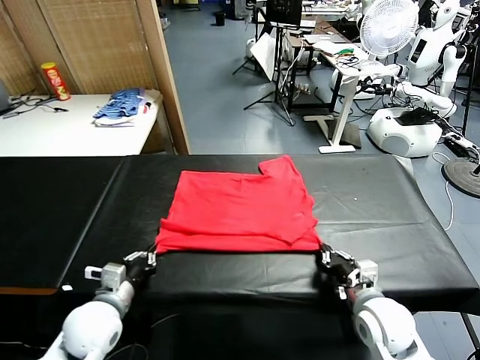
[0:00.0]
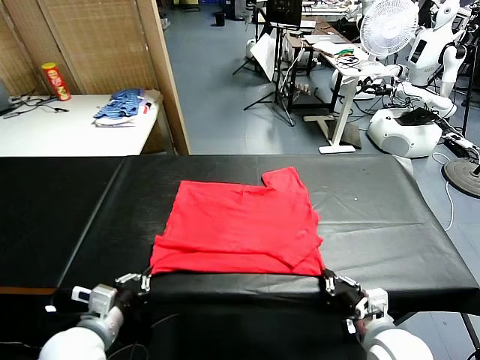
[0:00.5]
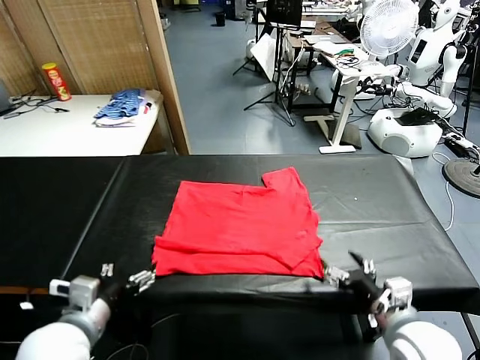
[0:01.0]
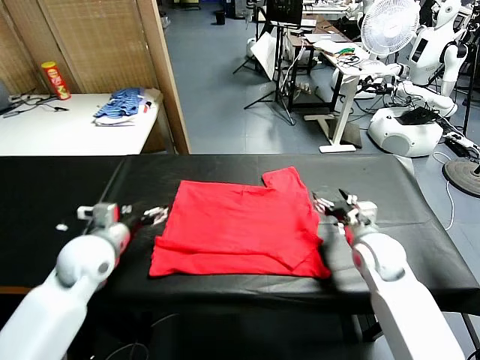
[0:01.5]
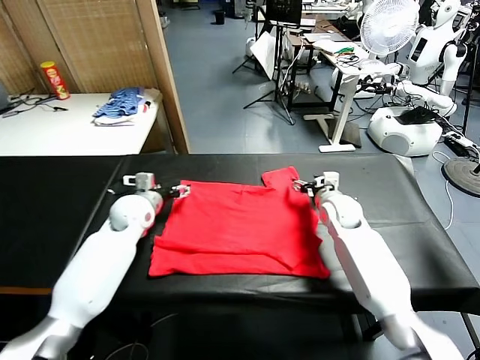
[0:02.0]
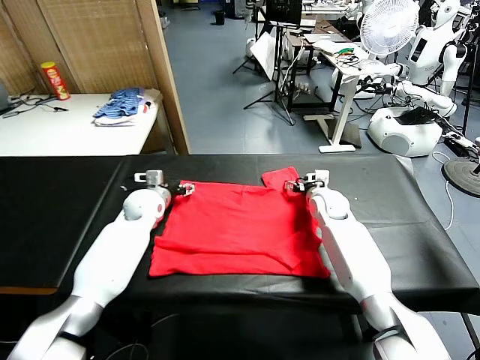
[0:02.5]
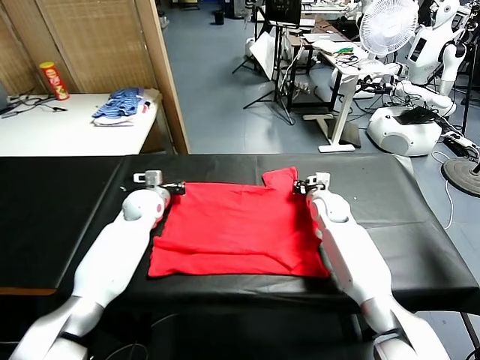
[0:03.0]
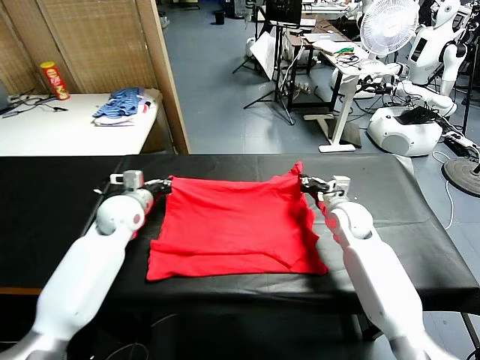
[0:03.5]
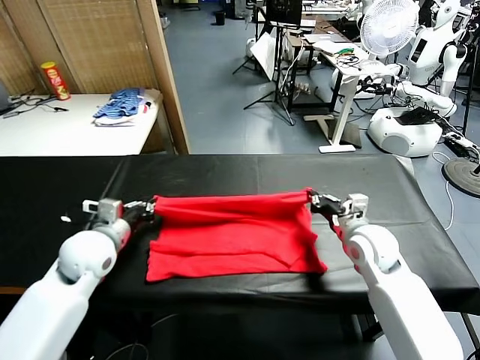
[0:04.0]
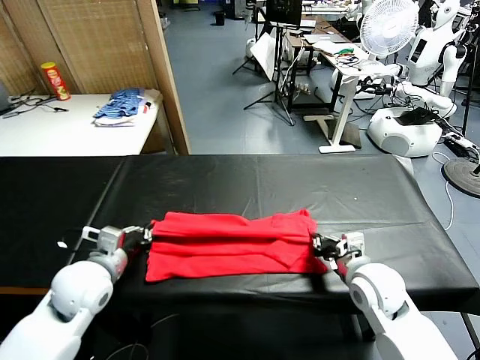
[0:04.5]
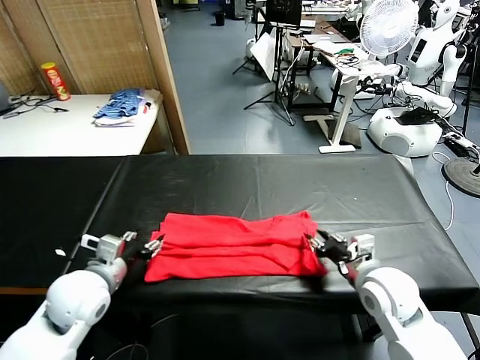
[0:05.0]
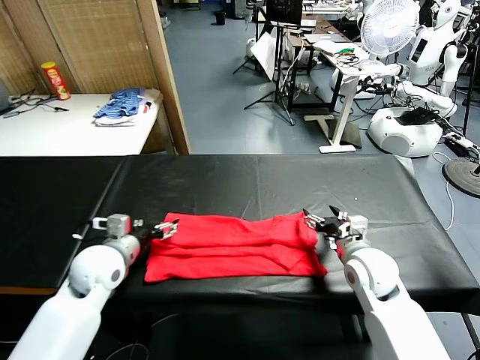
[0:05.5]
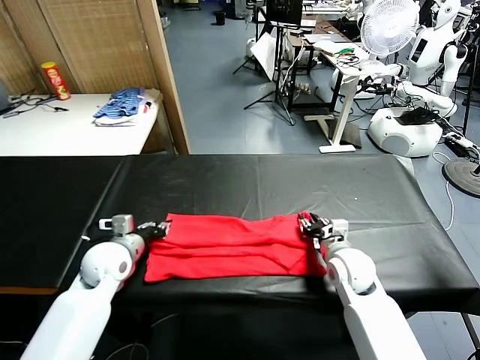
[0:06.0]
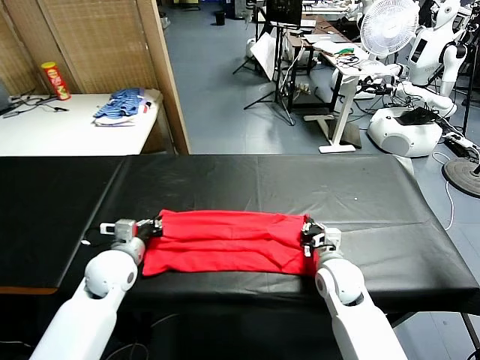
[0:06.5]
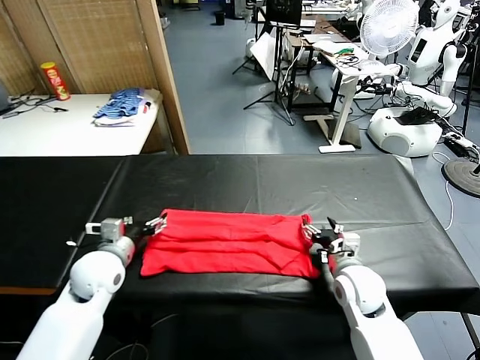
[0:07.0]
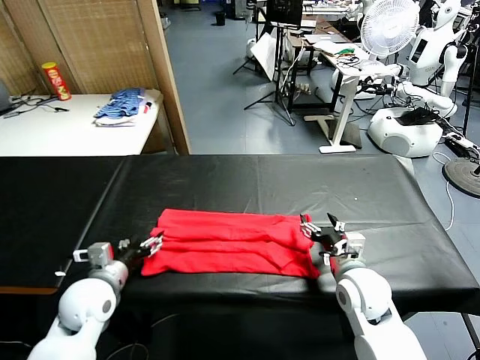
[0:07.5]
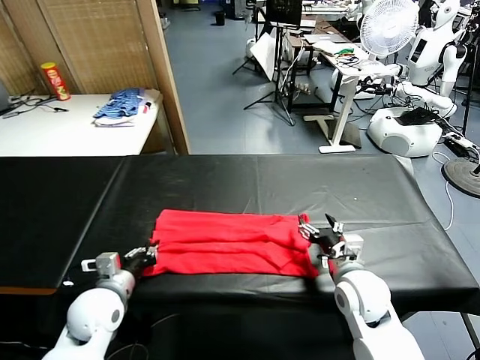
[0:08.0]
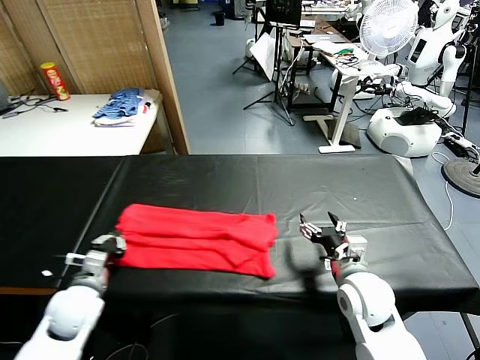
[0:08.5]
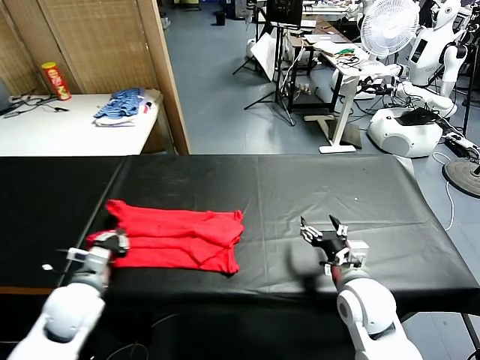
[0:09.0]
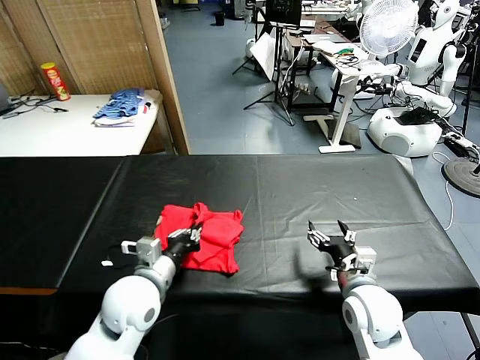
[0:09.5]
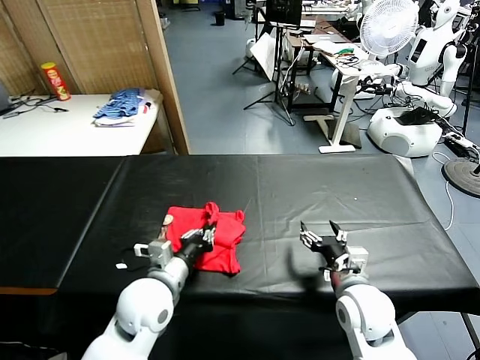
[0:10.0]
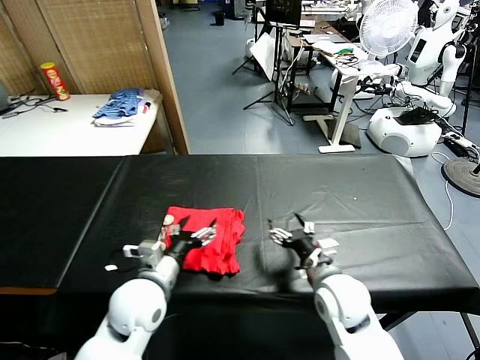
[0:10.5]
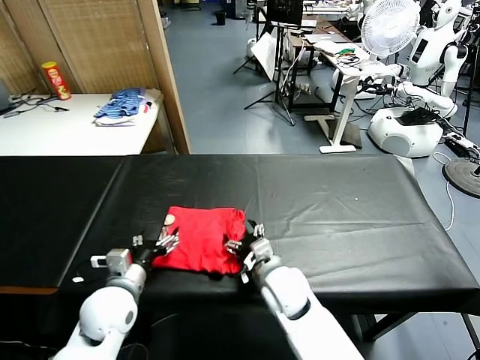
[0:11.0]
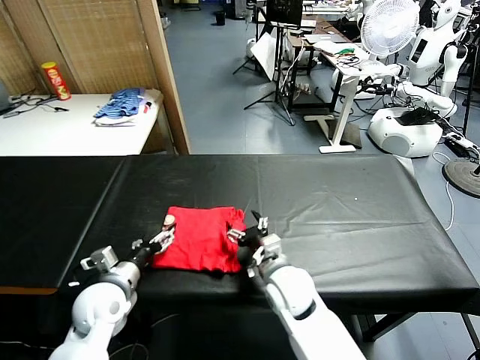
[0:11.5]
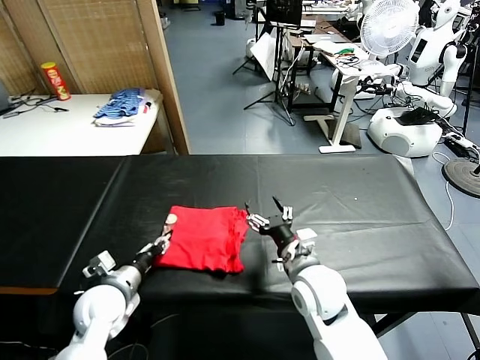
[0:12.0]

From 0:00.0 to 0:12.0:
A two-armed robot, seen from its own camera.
Task of the whole recording: fold and organize the clothes.
Step, from 0:01.0 to 0:03.0: use both grippers simultaneously to clamp the upper edge of the clothing fabric.
Step, from 0:03.5 to 0:05.0: use both grippers to drag the upper edge of the fabric backward and fold it over the lower edge.
Step, from 0:05.5 to 0:08.0: use the left gripper to clamp the left edge of the fabric.
Step, from 0:08.5 to 0:10.0: use the left gripper to drag the left edge of the fabric to the left and folds it over the right edge.
From 0:00.0 to 0:02.0: Both grippers move forward, roughly 30 cm. The left gripper opens its fingers. The right gripper opens its fingers.
From 0:02.0 to 0:04.0: Both grippers travel together backward, roughly 15 cm. The right gripper closes. The left gripper closes its fingers.
From 0:04.0 to 0:06.0: Both grippers move downward, approximately 5 cm. The left gripper goes backward and returns, roughly 5 cm each way, and opens, then closes again; the right gripper opens, then closes once more.
From 0:06.0 to 0:08.0: Both grippers move backward, roughly 10 cm. The right gripper opens. The left gripper opens and closes again.
From 0:08.0 to 0:10.0: The left gripper goes approximately 10 cm to the right.
From 0:10.0 to 0:12.0: The right gripper moves to the left, roughly 10 cm, while the left gripper shifts roughly 15 cm to the left and downward, and opens up.

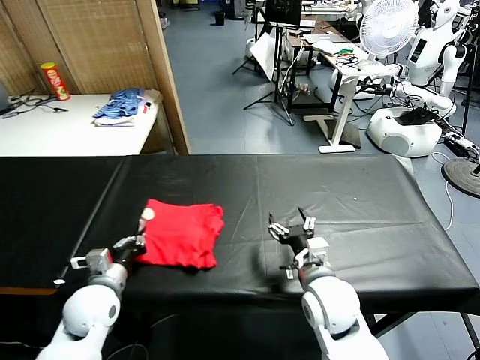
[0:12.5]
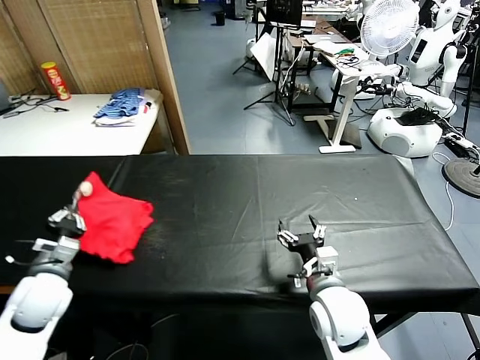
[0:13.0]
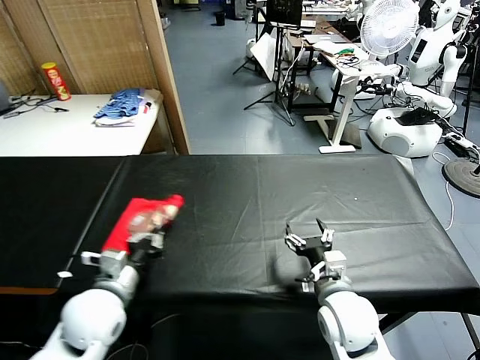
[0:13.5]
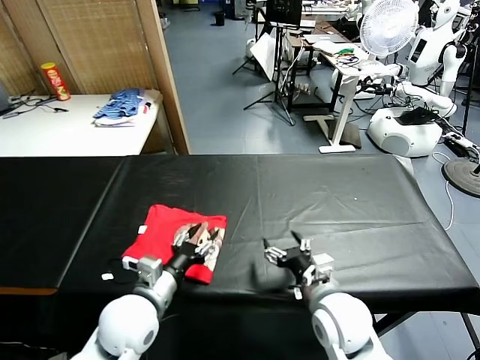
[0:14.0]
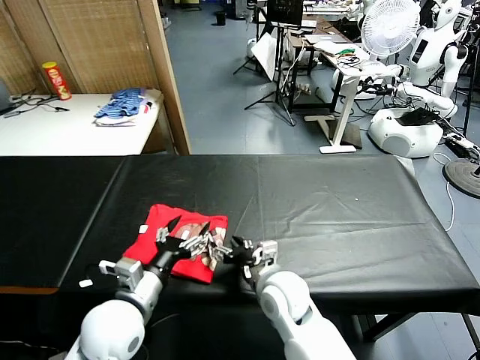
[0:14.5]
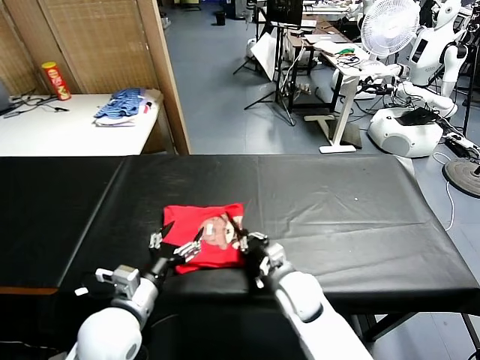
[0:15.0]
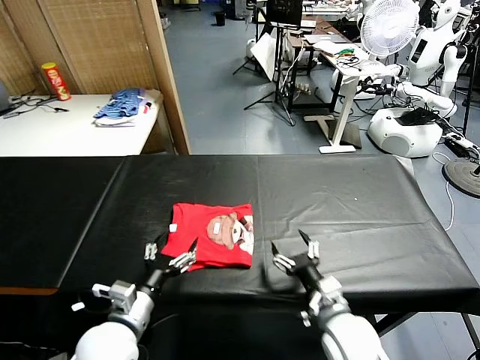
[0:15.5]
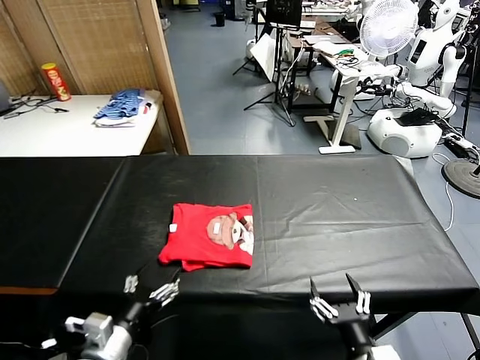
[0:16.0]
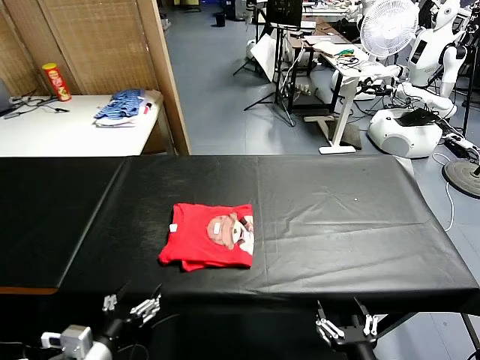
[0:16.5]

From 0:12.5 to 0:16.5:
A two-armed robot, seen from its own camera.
Task of the whole recording: fold and organize the clothes.
Step, from 0:14.5 to 0:15.0: Drag the clothes to the center of the table.
From 0:12.5 to 0:14.5: The right gripper shifts approximately 10 cm to the left, while the left gripper goes approximately 10 cm to the right, upward and backward, and opens its fingers.
From 0:14.5 to 0:16.5: The left gripper moves backward and to the left, roughly 15 cm; the right gripper moves backward and to the right, about 25 cm, and closes, then opens again.
